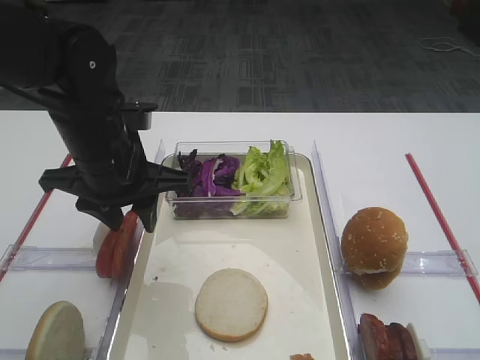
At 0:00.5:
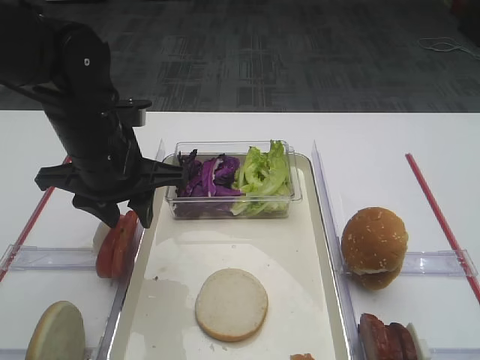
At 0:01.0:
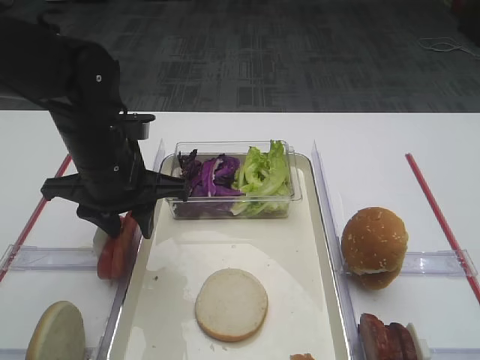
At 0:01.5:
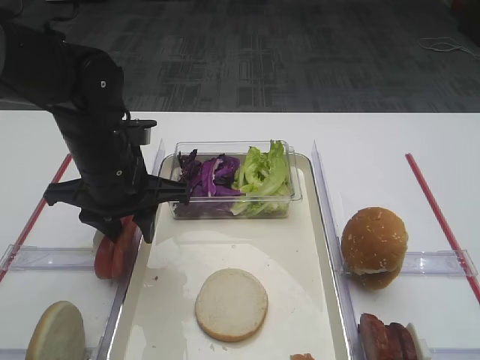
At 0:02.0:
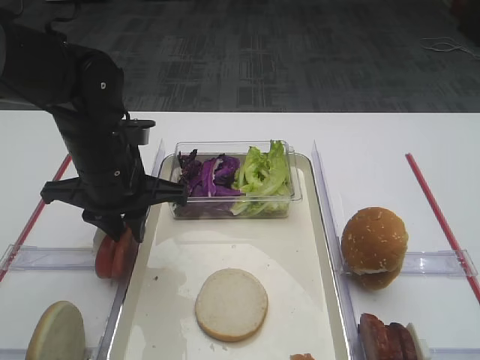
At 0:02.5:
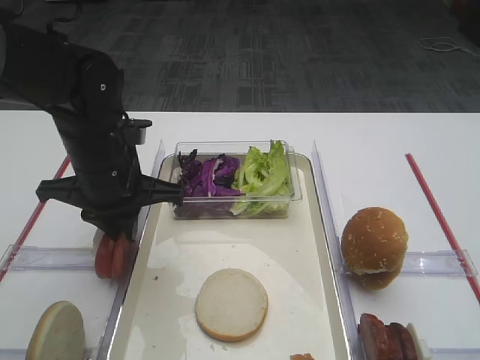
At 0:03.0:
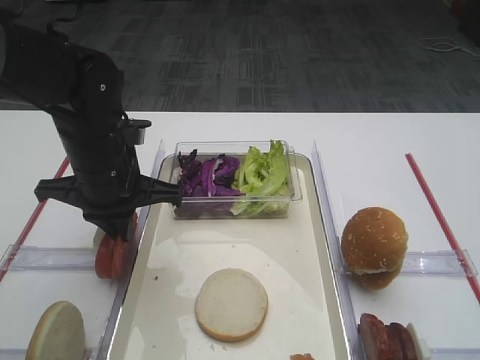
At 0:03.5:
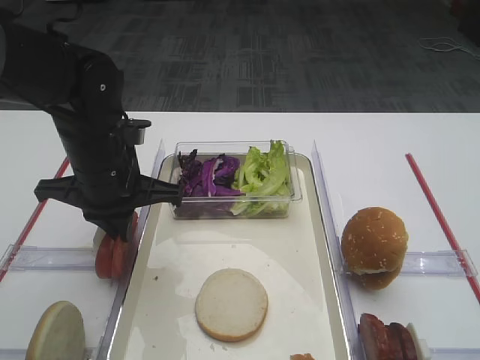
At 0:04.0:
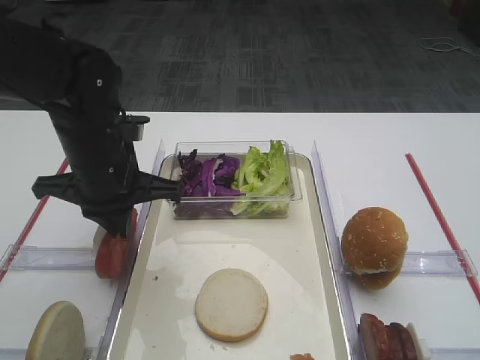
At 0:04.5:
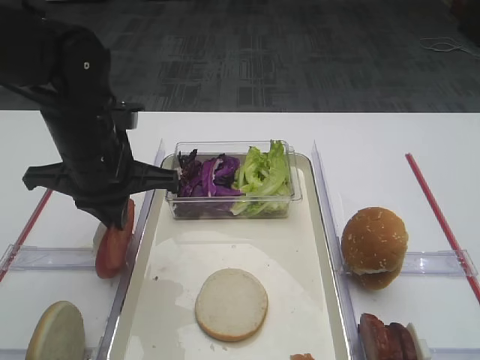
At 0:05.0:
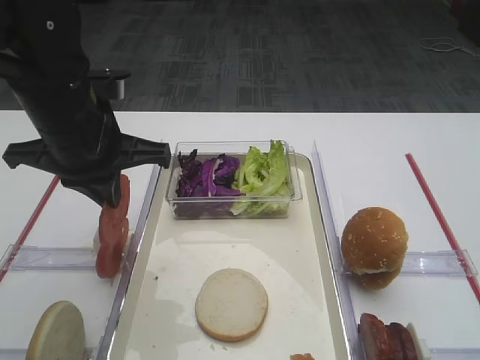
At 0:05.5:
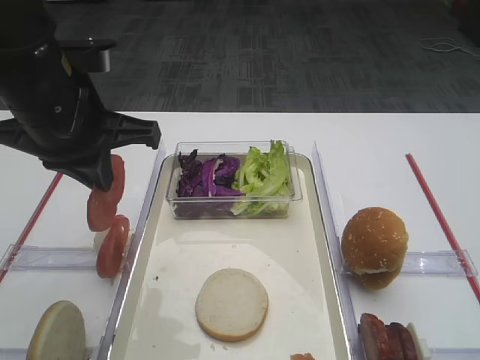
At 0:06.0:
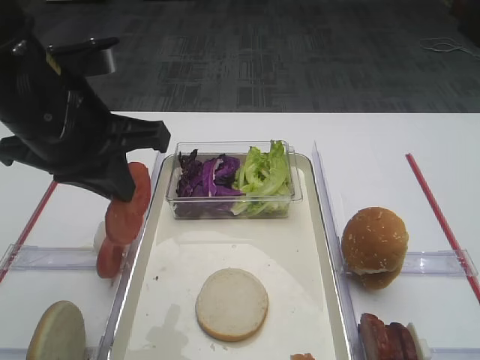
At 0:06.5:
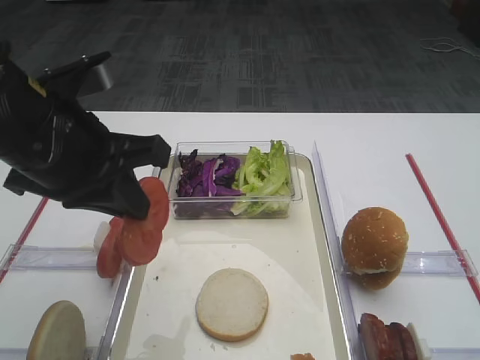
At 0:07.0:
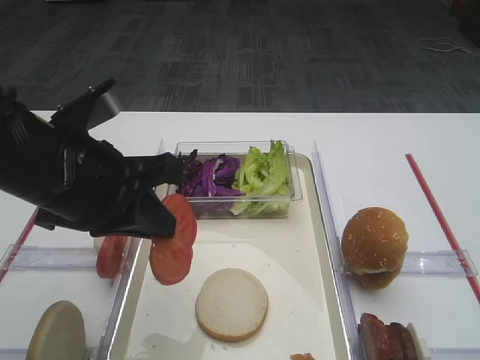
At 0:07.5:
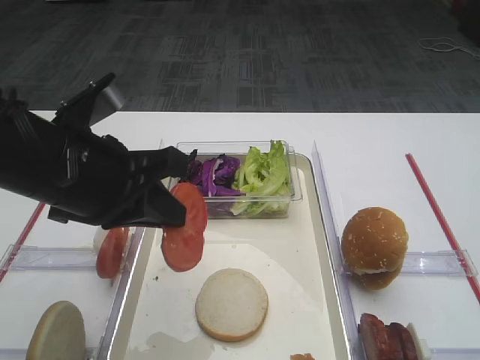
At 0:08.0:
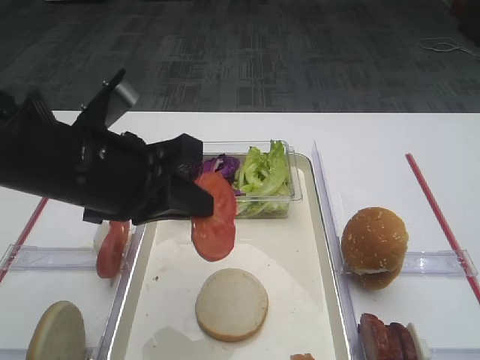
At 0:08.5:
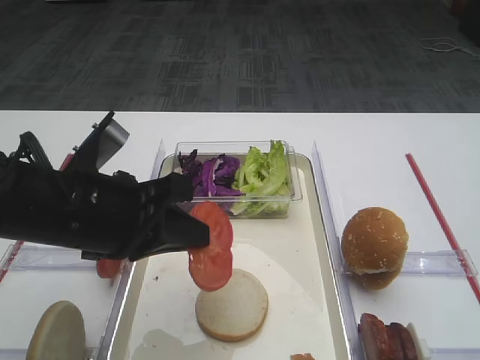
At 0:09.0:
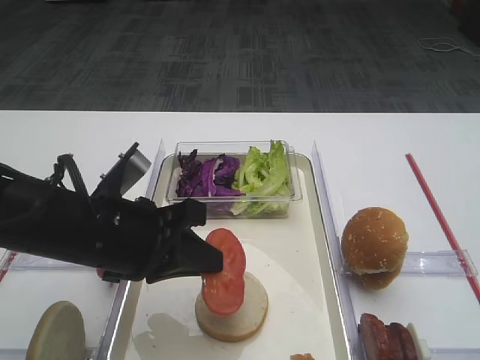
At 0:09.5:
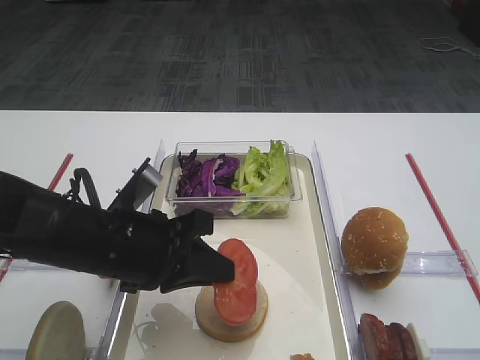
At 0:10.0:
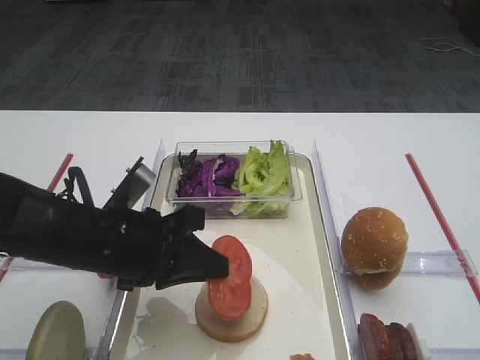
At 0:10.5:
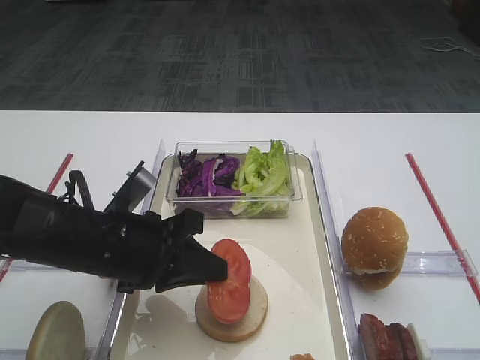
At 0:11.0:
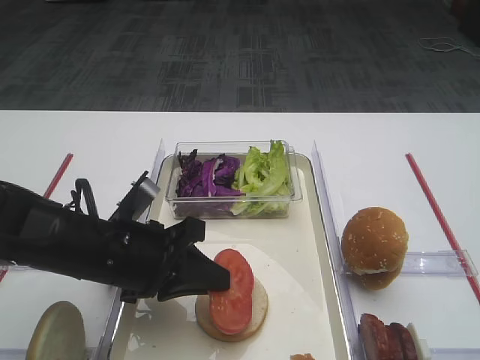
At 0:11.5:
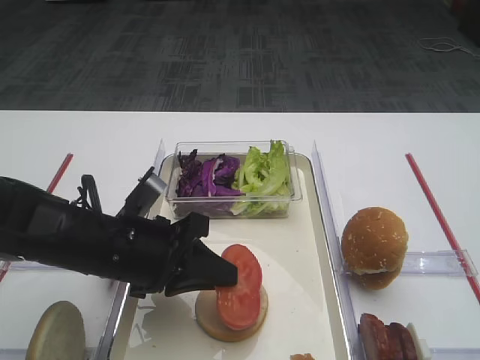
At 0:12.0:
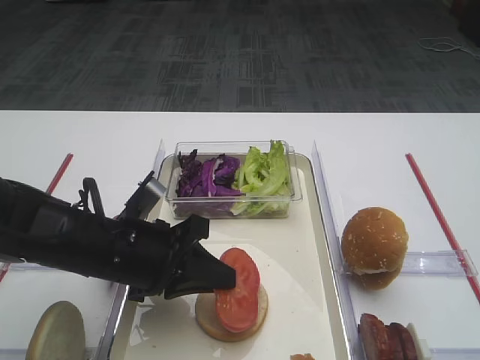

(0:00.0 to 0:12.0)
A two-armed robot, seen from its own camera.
Step, 0:00.0 - 0:04.5: Pick up the tomato slice with the left gripper.
0:00.0 - 0:02.0: There are only small adjustments of the grippers.
0:02.0 - 0:04.0: The left gripper closes its fingers.
0:04.0 - 0:06.0: The left gripper heads upward and backward, covering approximately 10 cm.
0:06.0 - 0:08.0: The left gripper ends up about 5 cm from where it was.
0:08.0 - 0:10.0: The left gripper travels downward by roughly 10 cm.
0:10.0 - 0:12.0: The grippers make only small movements.

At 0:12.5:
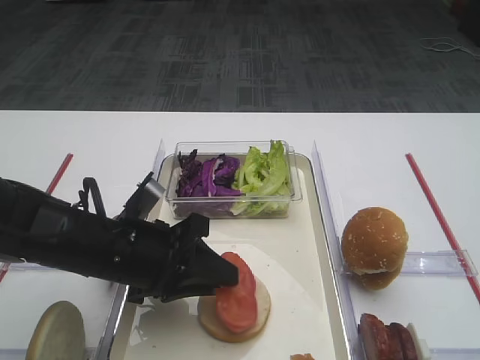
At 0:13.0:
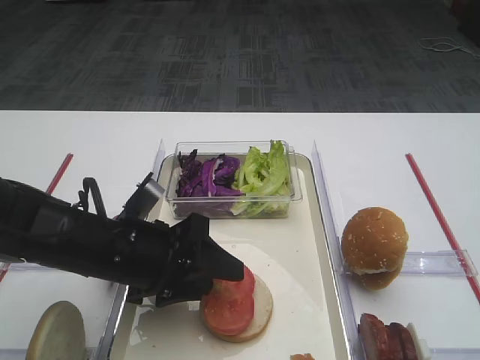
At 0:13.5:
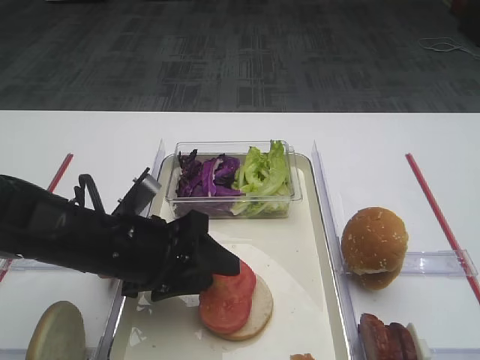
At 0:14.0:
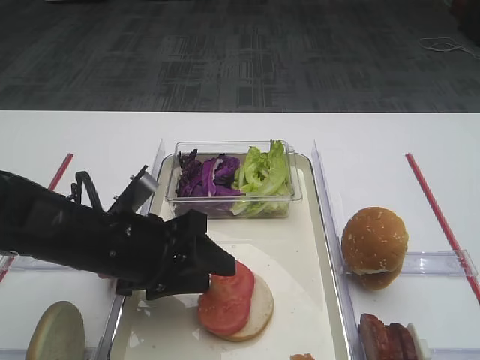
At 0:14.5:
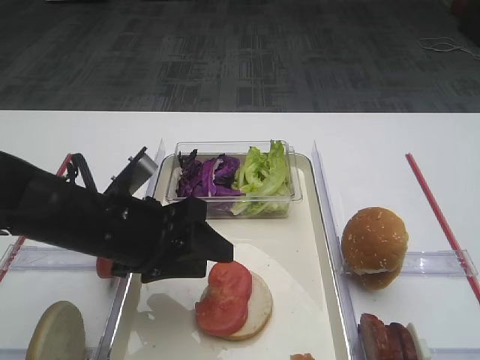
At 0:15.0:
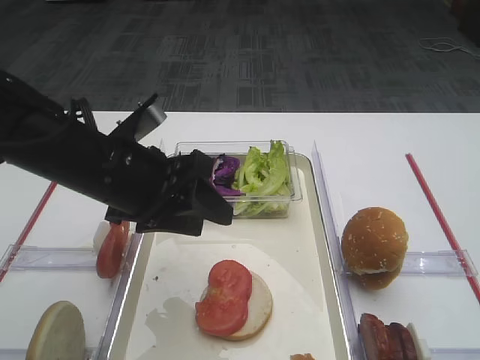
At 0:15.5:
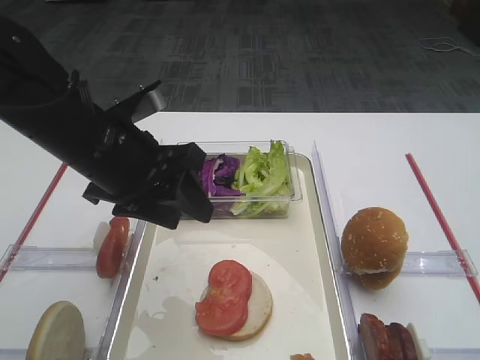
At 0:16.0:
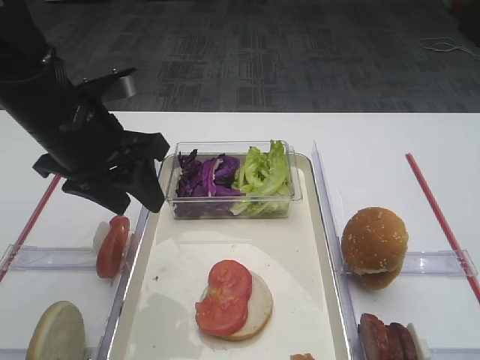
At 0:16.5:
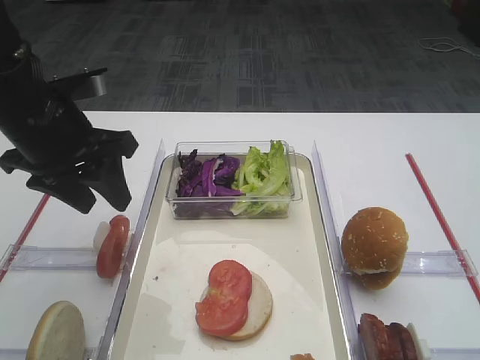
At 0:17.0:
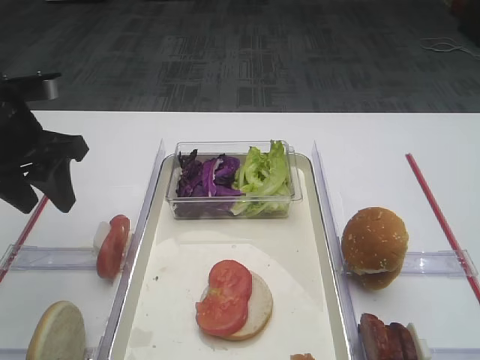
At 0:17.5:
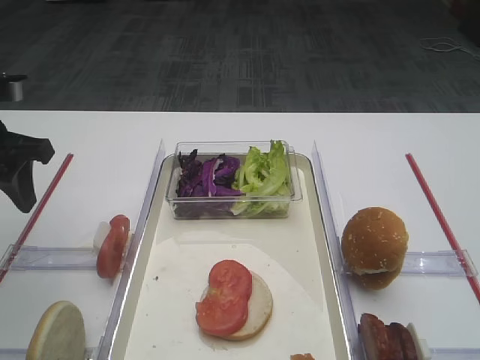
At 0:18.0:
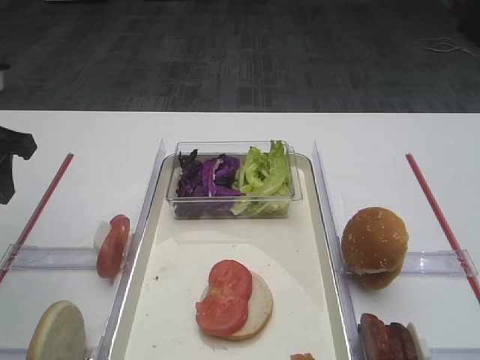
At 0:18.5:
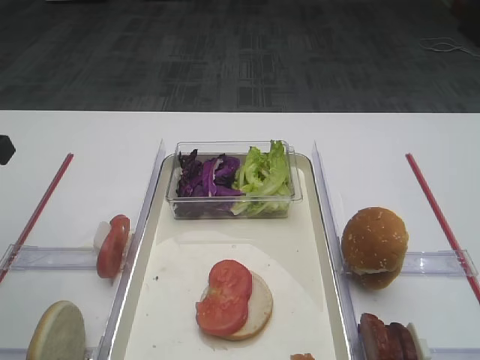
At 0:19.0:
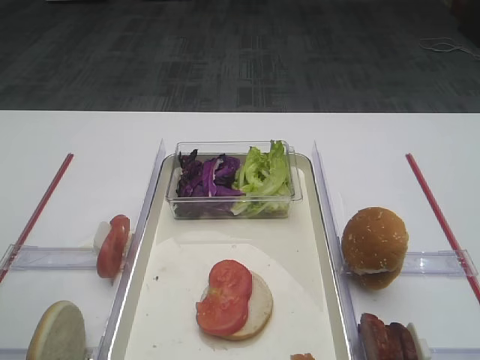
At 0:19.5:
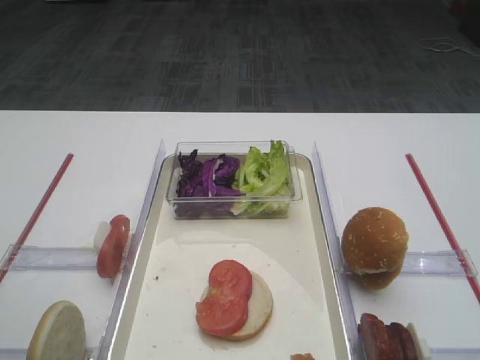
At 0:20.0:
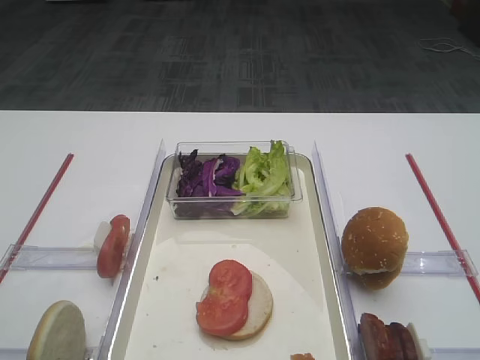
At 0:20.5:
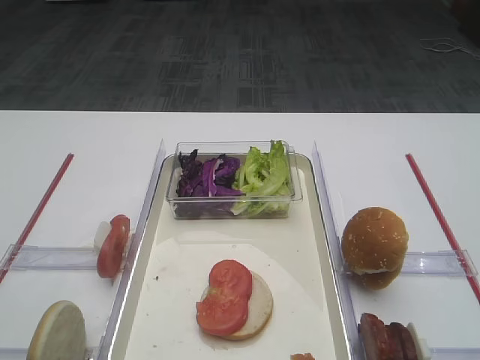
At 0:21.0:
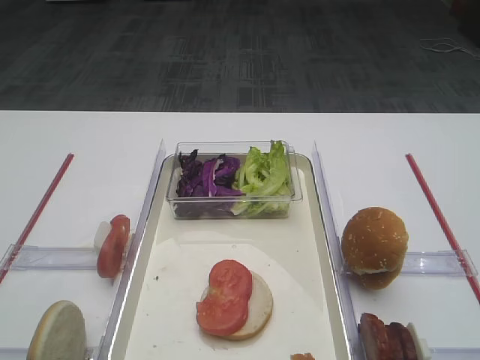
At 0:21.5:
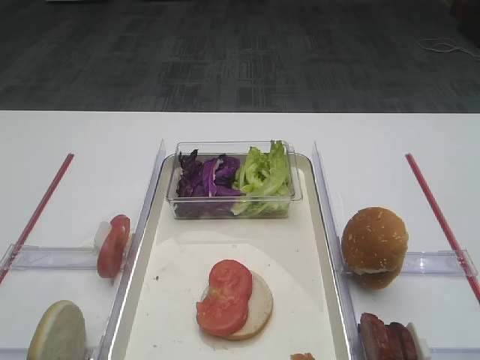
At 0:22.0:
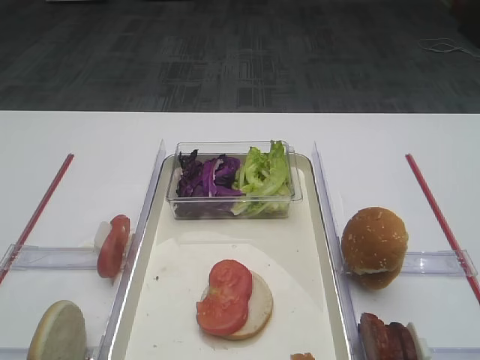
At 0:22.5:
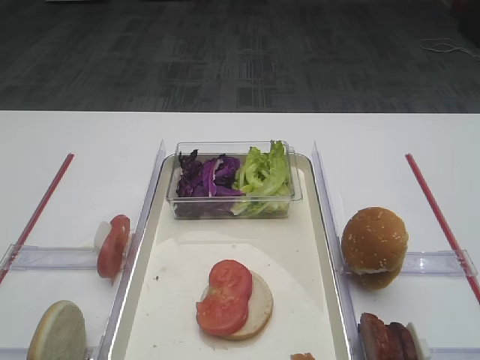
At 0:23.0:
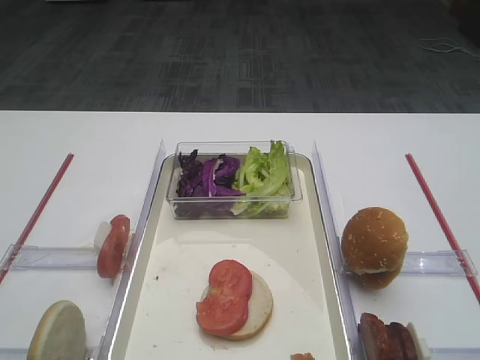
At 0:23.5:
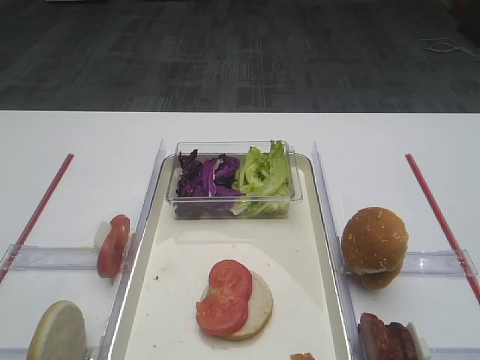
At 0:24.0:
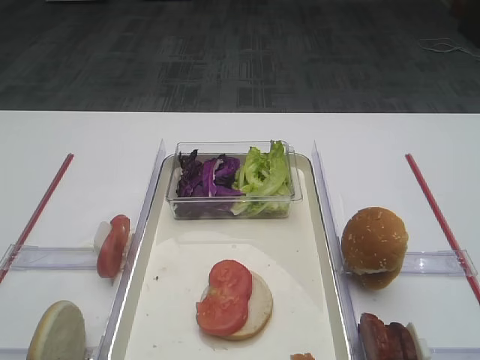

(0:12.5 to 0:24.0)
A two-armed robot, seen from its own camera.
0:12.5 - 0:14.5: The left gripper opens up.
0:14.5 - 0:16.5: The left gripper shifts approximately 15 cm upward, to the left and forward.
0:16.5 - 0:18.5: The left gripper shifts roughly 10 cm to the left.

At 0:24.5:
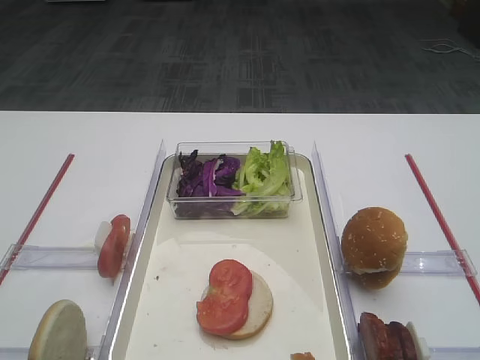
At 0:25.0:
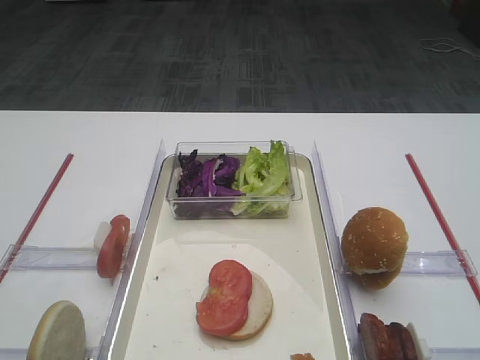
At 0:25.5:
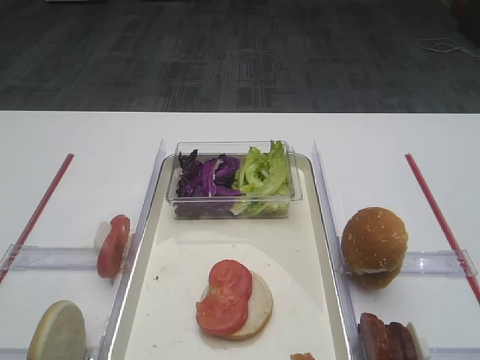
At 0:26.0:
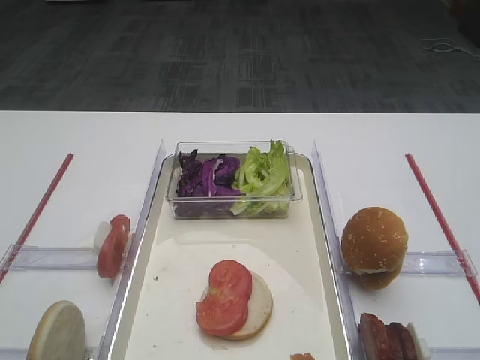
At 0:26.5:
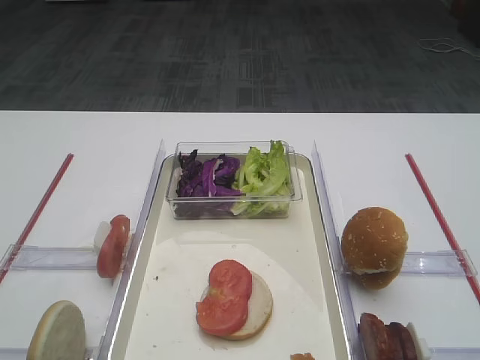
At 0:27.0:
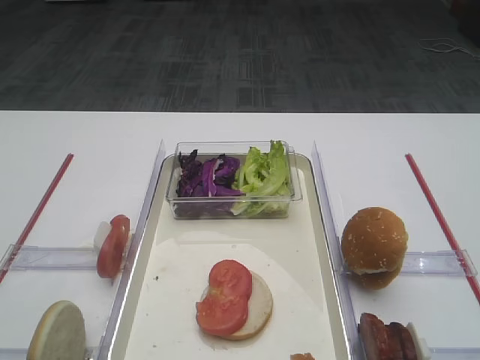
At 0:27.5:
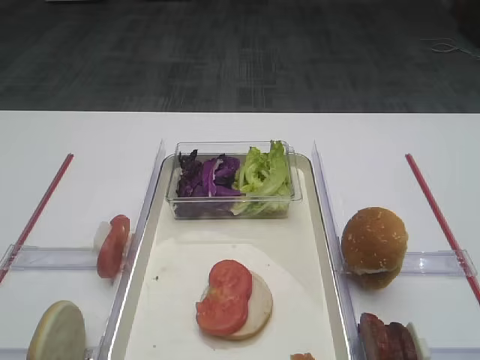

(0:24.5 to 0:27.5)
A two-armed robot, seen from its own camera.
0:24.5 - 0:27.5: Neither gripper changes place.
